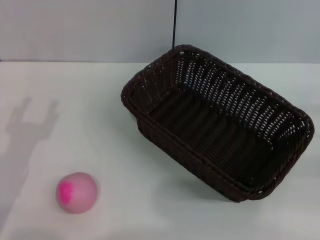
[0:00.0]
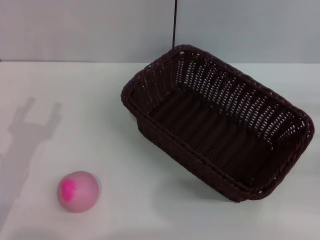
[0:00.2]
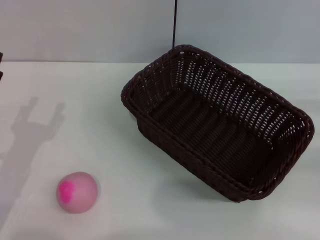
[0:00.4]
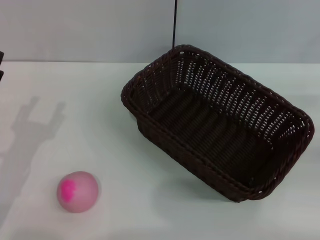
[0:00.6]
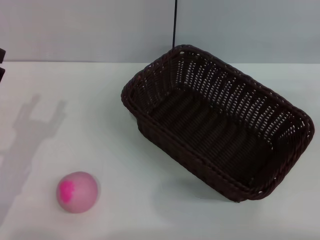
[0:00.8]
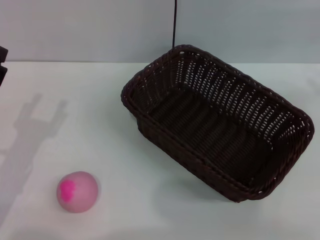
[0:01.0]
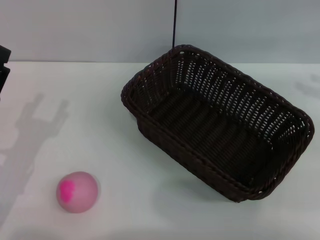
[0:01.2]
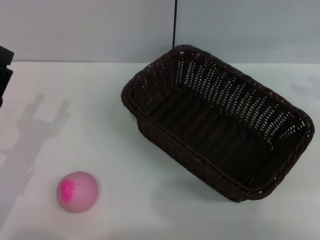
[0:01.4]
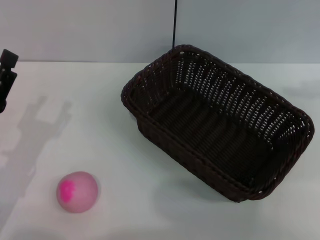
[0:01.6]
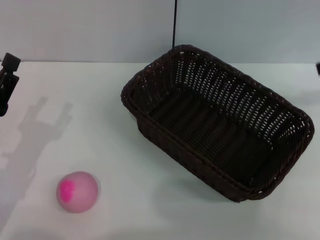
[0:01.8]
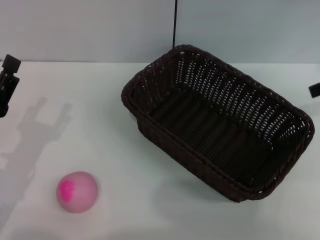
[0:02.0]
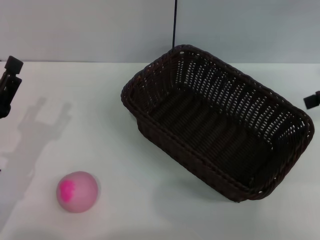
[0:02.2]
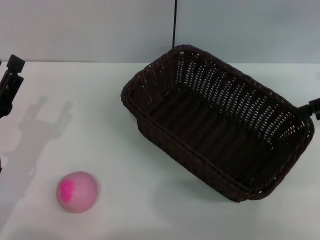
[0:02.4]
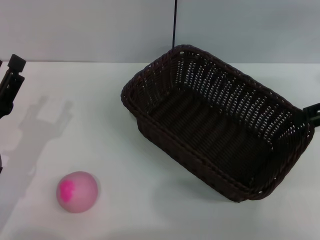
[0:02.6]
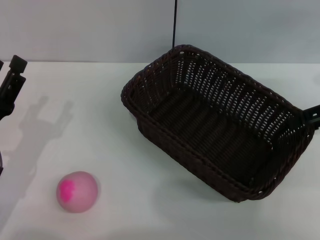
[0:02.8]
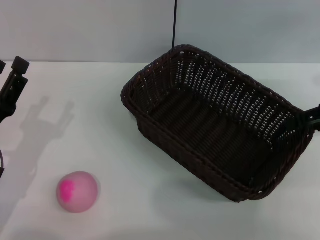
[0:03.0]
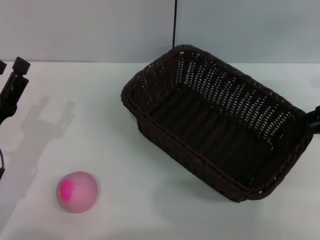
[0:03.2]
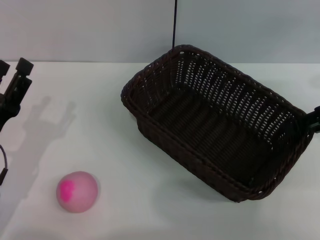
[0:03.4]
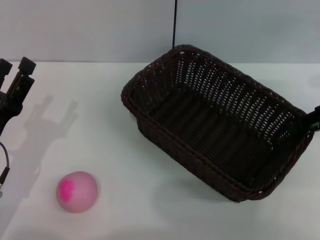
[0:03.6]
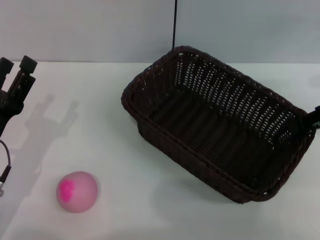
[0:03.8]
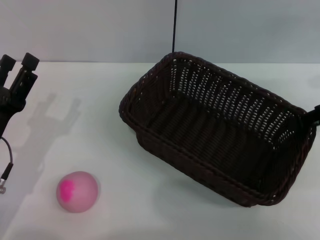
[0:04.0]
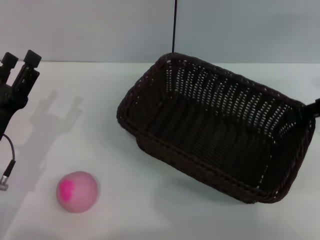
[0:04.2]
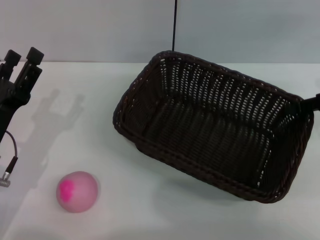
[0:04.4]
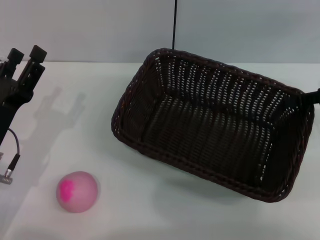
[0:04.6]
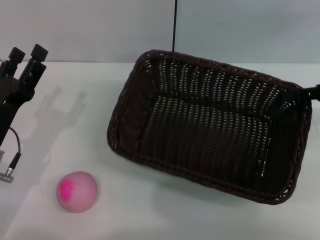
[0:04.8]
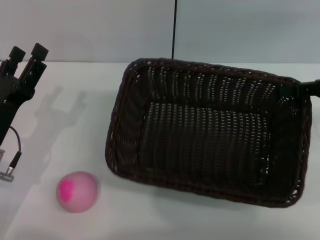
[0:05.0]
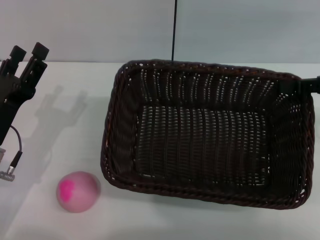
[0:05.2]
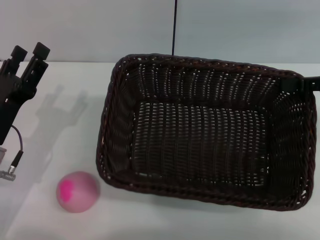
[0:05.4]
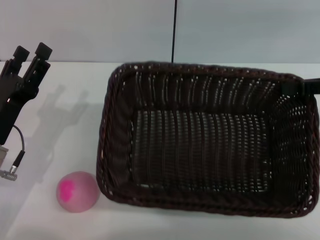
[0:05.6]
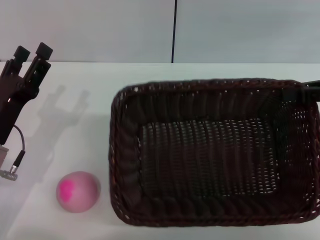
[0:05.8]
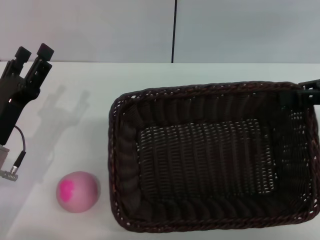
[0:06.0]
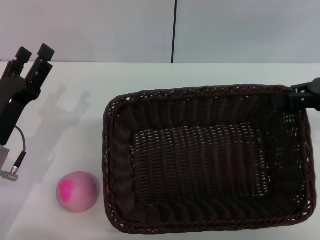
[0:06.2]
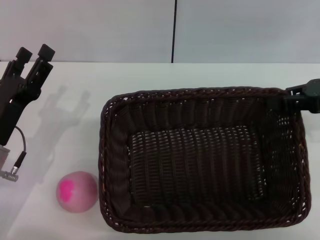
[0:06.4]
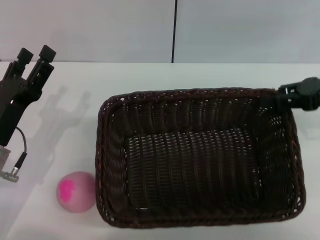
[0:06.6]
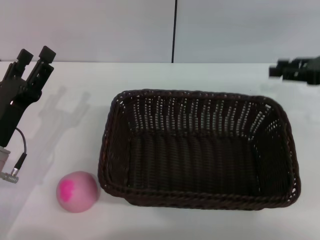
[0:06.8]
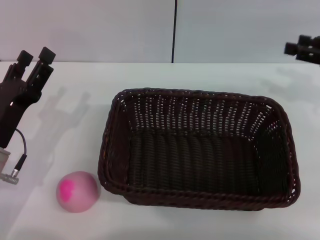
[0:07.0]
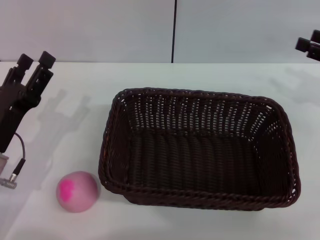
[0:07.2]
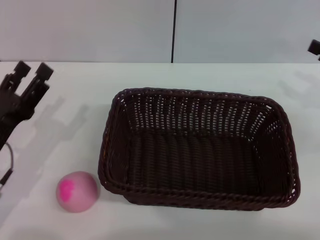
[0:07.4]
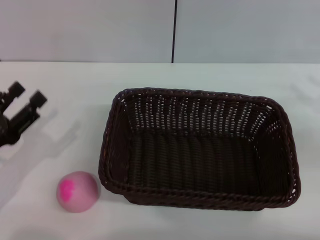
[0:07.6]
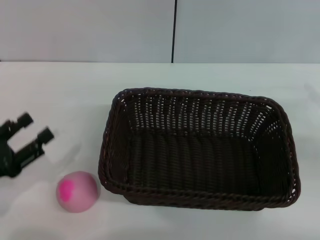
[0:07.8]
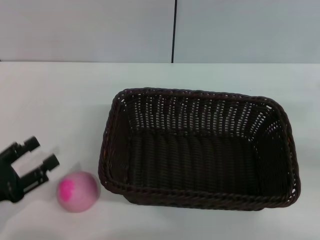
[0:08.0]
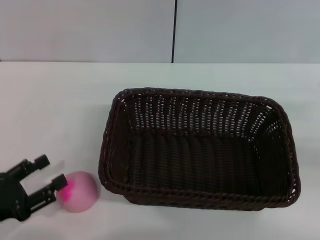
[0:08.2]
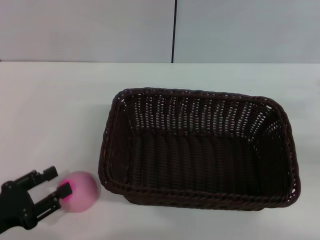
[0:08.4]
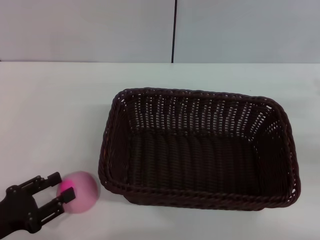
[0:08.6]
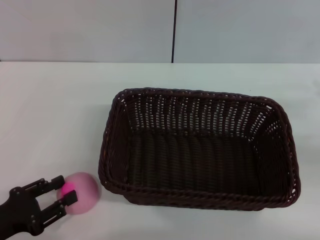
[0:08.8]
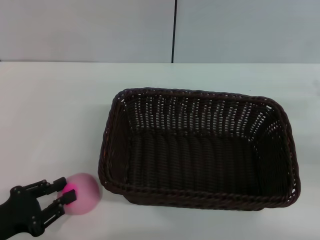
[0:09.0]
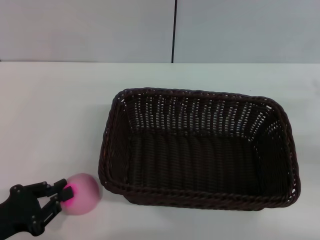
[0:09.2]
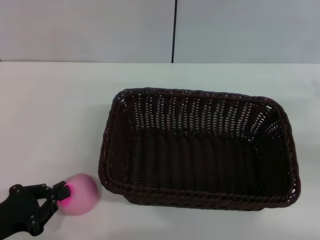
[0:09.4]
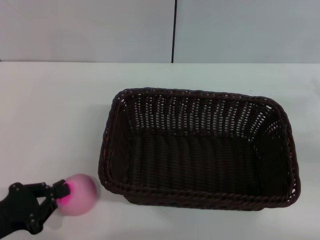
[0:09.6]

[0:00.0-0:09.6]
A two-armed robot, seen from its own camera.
Step, 0:00.0 to 0:04.8: Pick up the dark basket with the right gripper.
Step, 0:05.0 to 0:07.0: Place the dark basket in the center of view with the right gripper.
0:00.0 to 0:01.6: The right gripper heads upward and forward, covering roughly 25 cm, and opens up.
0:03.2 to 0:04.8: The right gripper closes its fingers.
0:06.4 to 0:08.0: The left gripper moves backward and to the left, approximately 10 cm. Meanwhile the right gripper is displaced to the right, backward and downward by about 15 cm, and opens.
0:08.0 to 0:09.6: The left gripper closes its fingers.

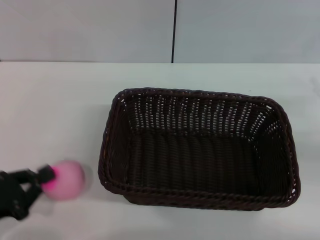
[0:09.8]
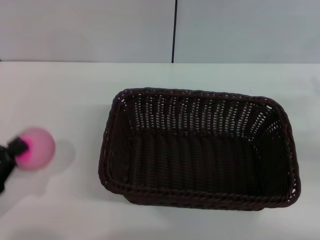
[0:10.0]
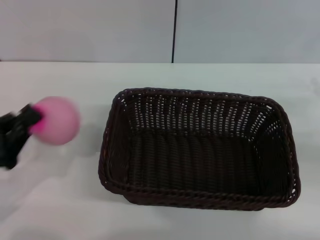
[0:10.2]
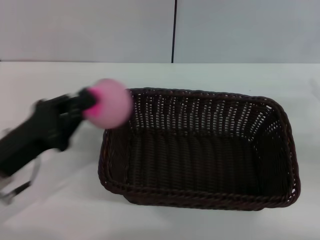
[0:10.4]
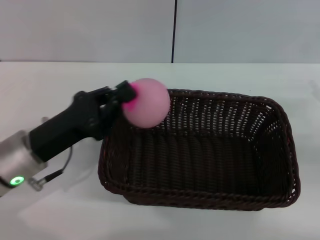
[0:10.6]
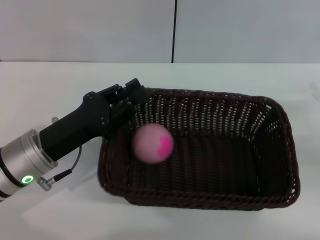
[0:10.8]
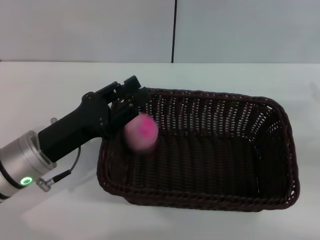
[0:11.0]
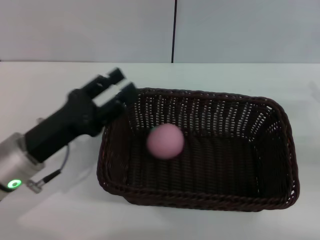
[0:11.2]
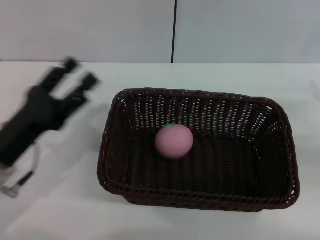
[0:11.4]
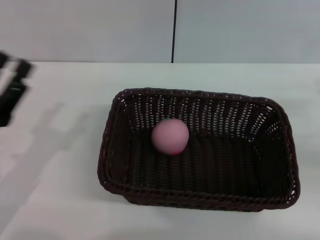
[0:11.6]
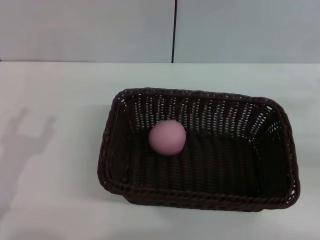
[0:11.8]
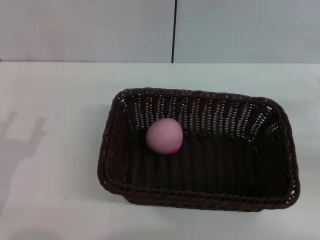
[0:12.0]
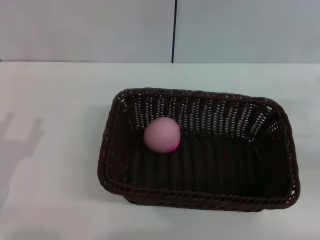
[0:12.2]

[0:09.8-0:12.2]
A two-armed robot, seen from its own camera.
Step, 0:10.2 to 0:11.0: Place the peach into the basket with the left gripper.
0:09.8 to 0:11.0: The left gripper is displaced to the right and forward by some 15 cm.
0:11.0 to 0:12.2: The left gripper heads to the left and backward, covering approximately 15 cm, and opens.

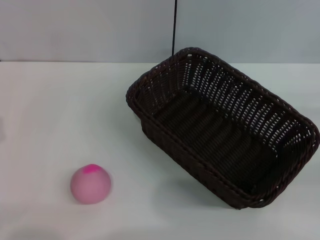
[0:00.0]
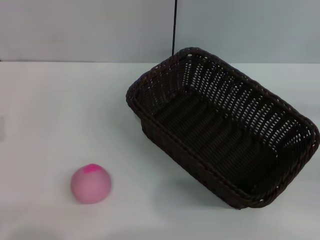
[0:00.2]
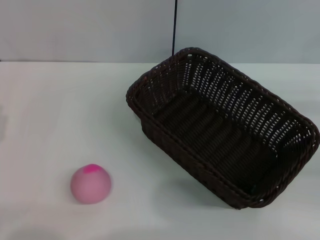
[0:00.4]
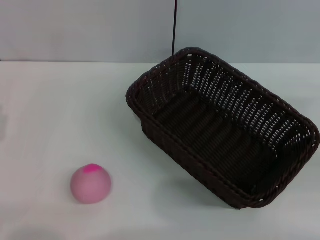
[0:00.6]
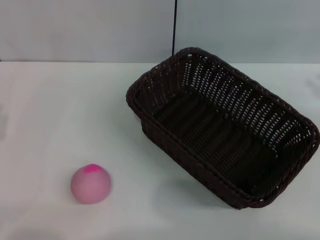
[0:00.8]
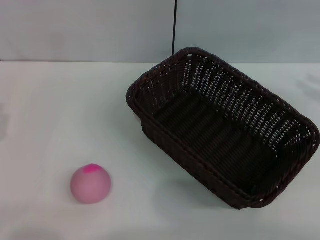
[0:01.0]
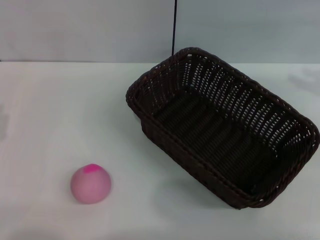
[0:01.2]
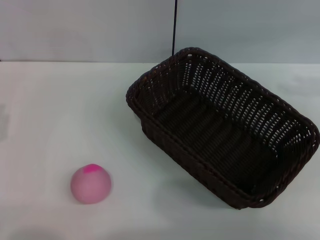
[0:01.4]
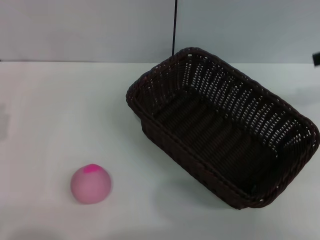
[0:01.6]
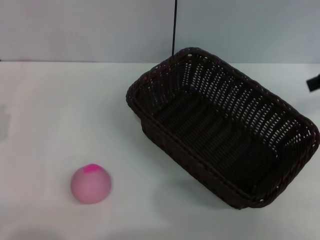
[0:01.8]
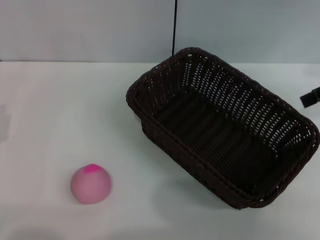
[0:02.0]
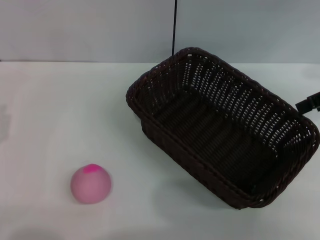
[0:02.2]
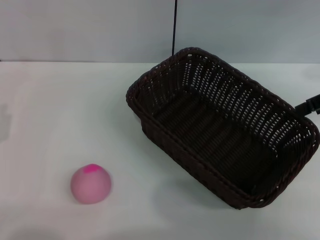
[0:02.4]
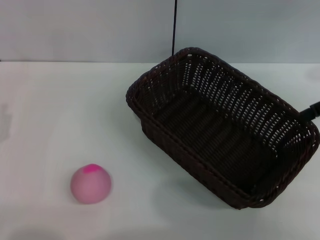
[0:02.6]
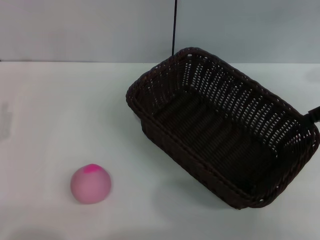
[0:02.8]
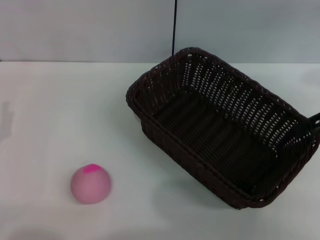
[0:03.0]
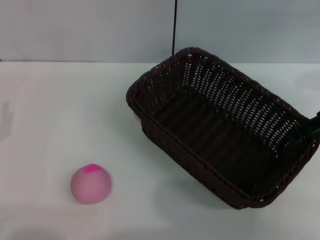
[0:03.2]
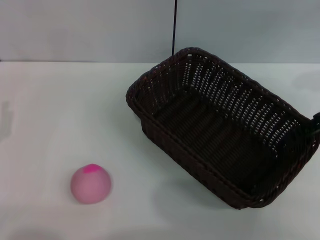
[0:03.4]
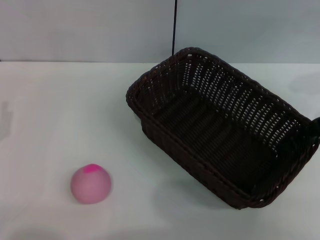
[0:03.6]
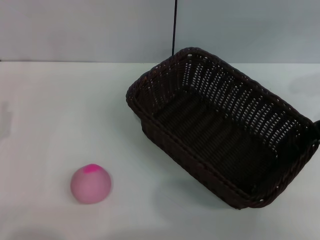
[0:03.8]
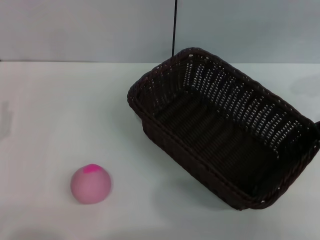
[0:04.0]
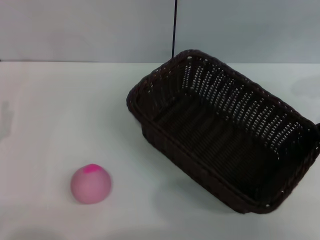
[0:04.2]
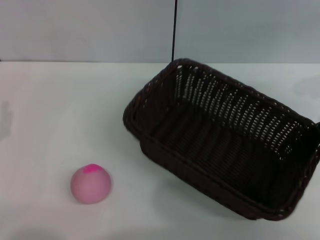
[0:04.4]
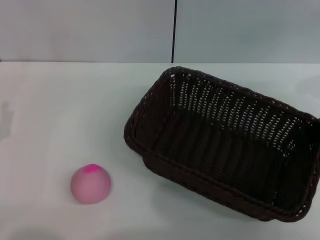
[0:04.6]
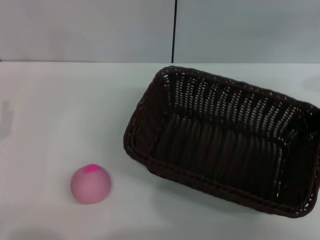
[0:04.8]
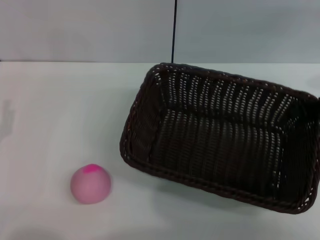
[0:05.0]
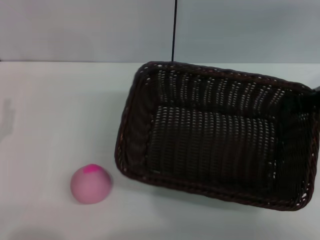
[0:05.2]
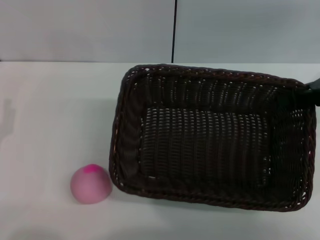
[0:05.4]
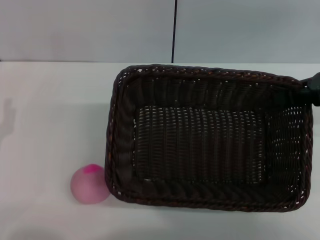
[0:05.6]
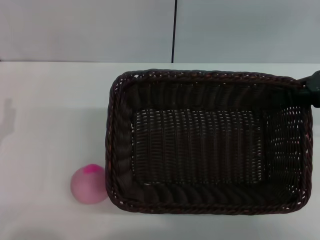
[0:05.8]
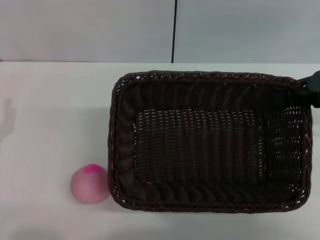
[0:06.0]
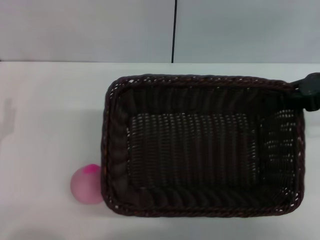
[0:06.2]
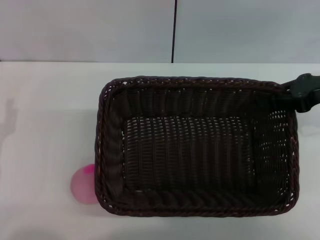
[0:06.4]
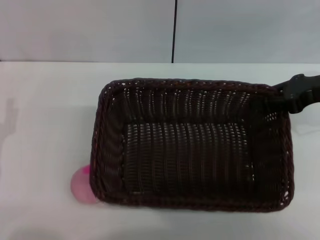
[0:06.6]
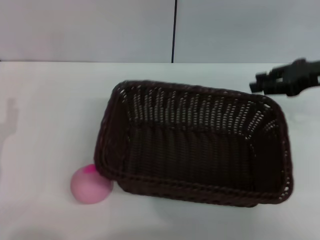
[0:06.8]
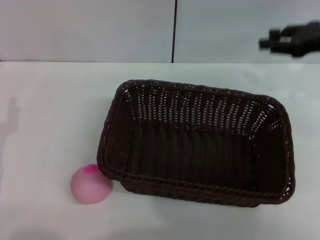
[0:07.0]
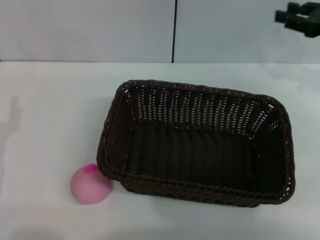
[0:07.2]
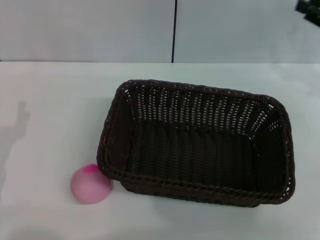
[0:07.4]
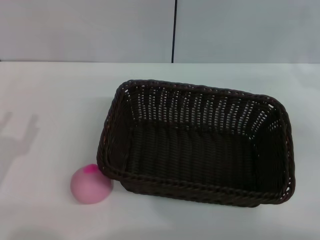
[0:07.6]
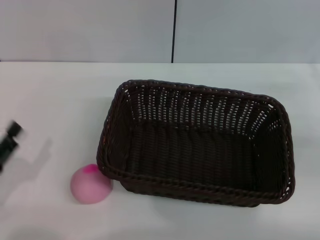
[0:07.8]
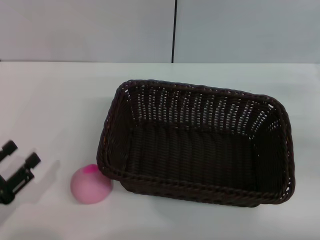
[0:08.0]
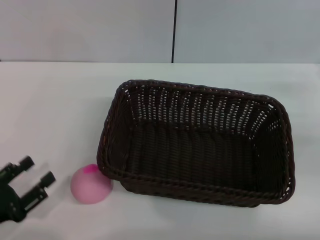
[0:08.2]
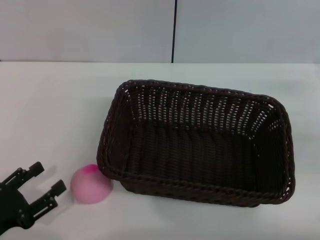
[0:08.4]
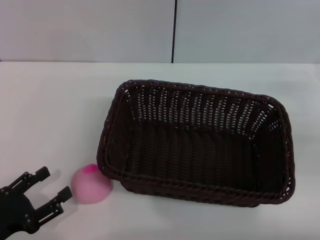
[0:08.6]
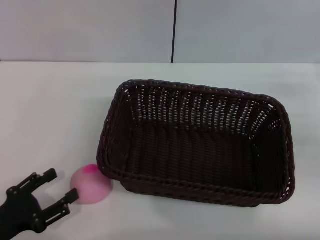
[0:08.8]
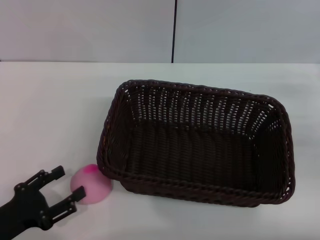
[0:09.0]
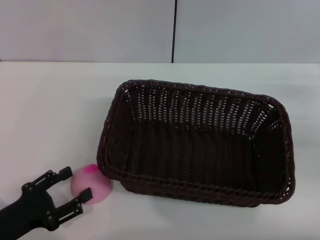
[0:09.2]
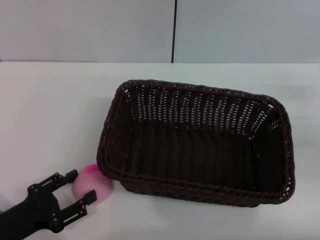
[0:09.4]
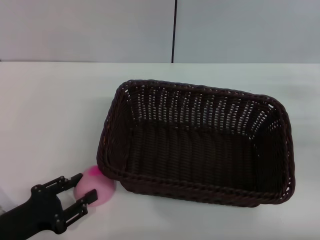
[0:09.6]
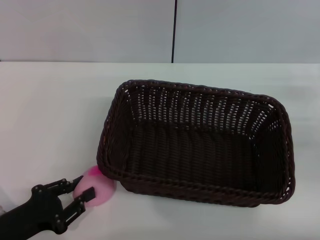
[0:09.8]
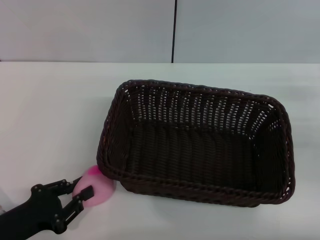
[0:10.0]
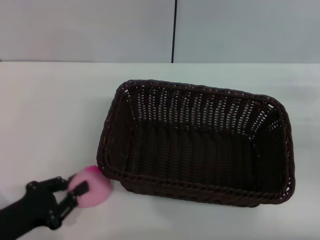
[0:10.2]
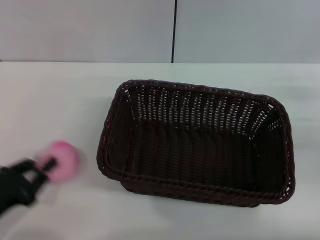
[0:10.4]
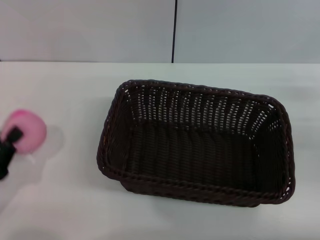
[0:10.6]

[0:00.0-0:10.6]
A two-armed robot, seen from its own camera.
Step, 0:00.0 to 0:04.0: Pick up the dark basket with the right gripper.
Step, 0:04.2 to 0:07.2: Place the dark basket in the center of view with the right gripper.
Step, 0:07.4 to 0:10.6: Pick up the peach with the left gripper.
0:00.0 to 0:01.6: The right gripper shifts some 25 cm upward and forward, and opens its fingers.
0:03.0 to 0:04.6: The right gripper closes its fingers.
0:06.0 to 0:07.6: The right gripper ends up some 5 cm from where it was, and opens.
0:09.0 to 0:10.6: The left gripper closes its fingers.
